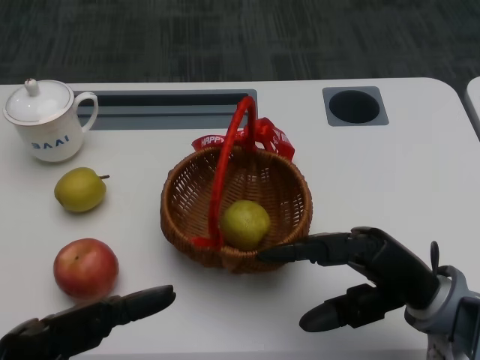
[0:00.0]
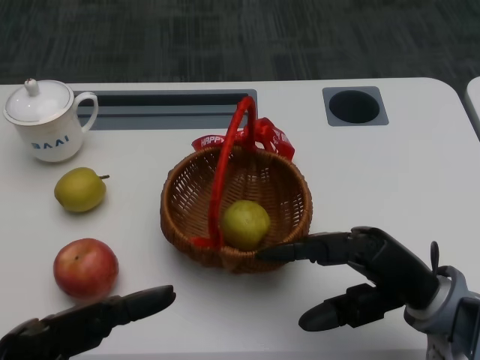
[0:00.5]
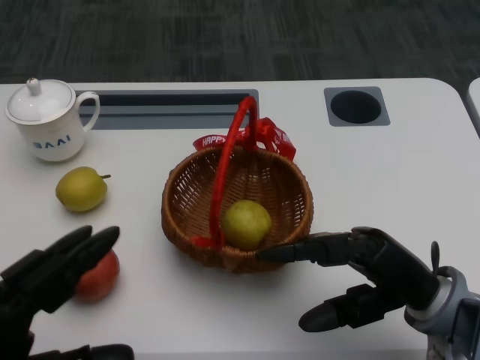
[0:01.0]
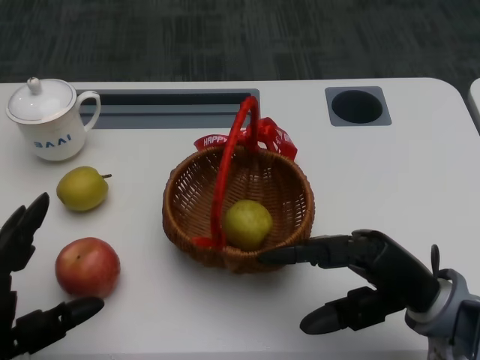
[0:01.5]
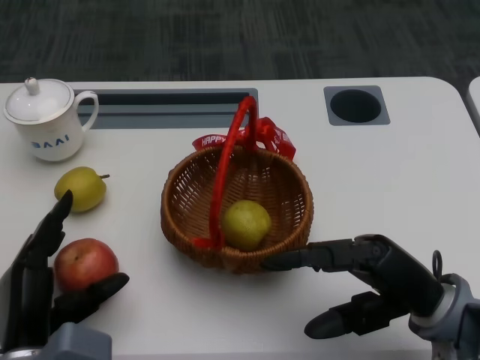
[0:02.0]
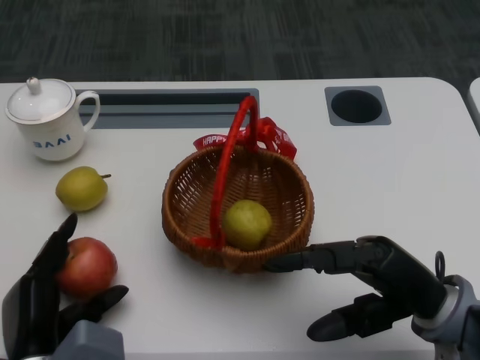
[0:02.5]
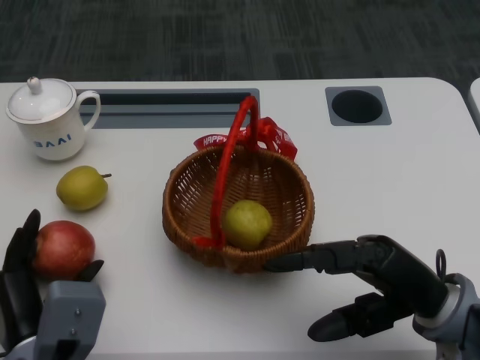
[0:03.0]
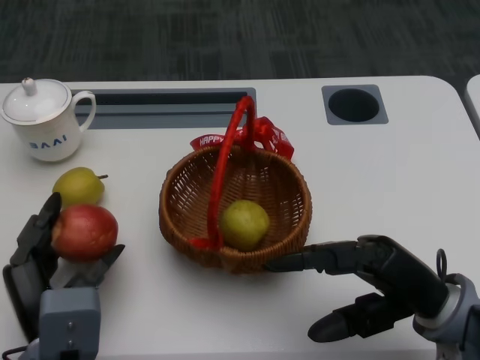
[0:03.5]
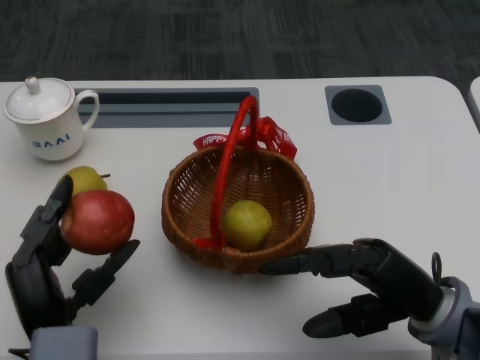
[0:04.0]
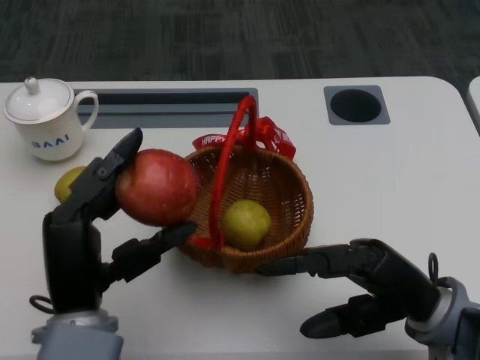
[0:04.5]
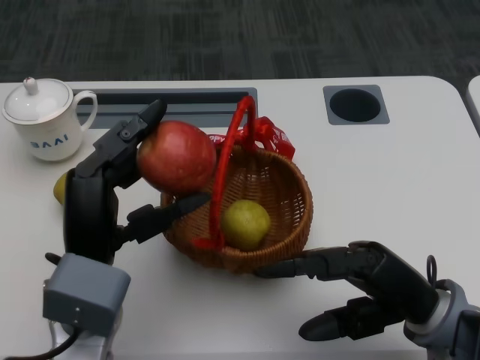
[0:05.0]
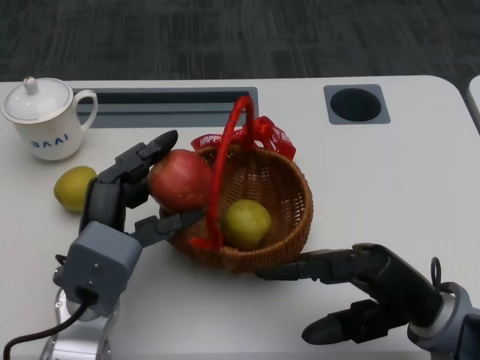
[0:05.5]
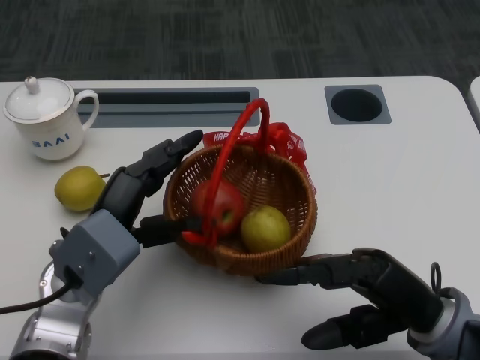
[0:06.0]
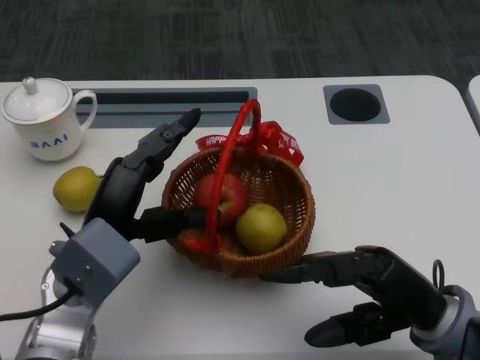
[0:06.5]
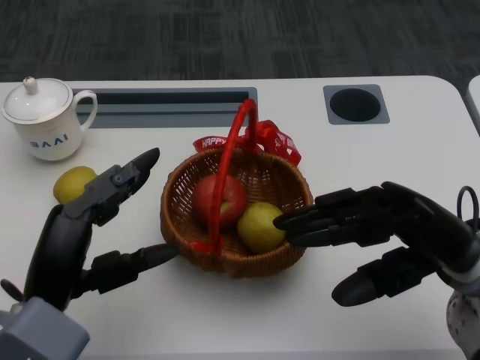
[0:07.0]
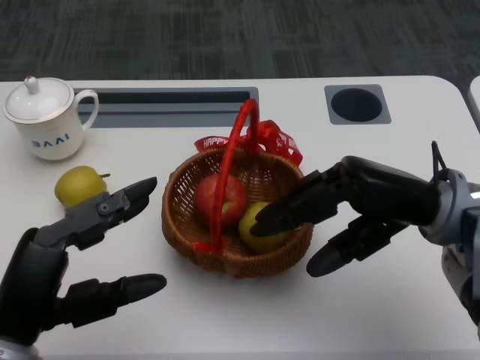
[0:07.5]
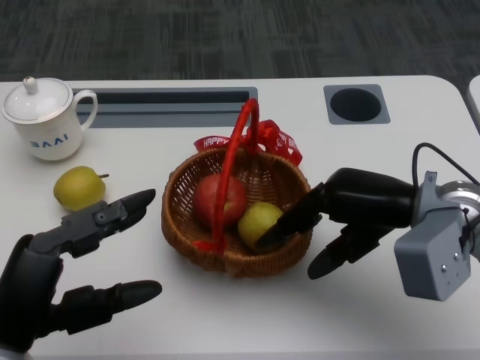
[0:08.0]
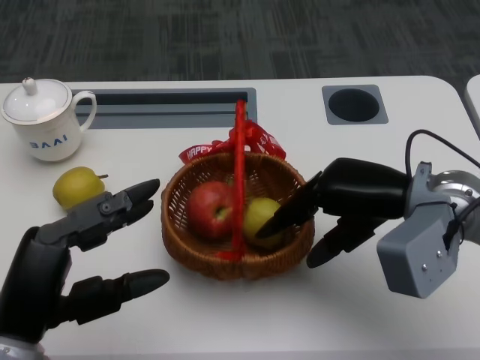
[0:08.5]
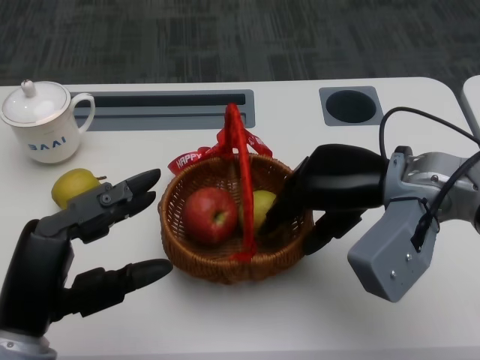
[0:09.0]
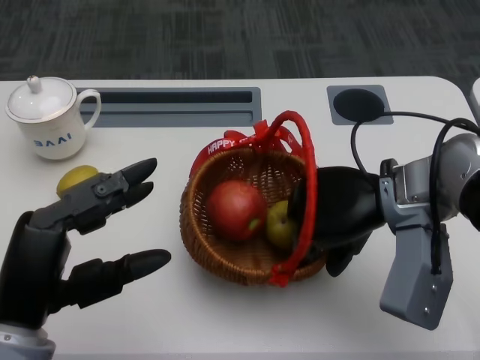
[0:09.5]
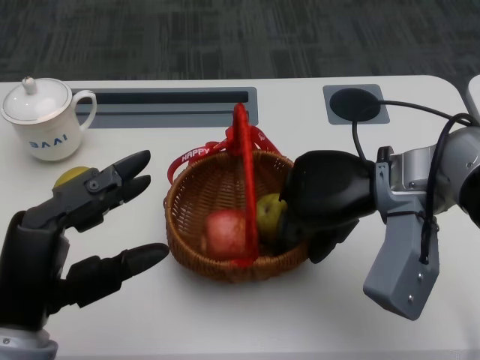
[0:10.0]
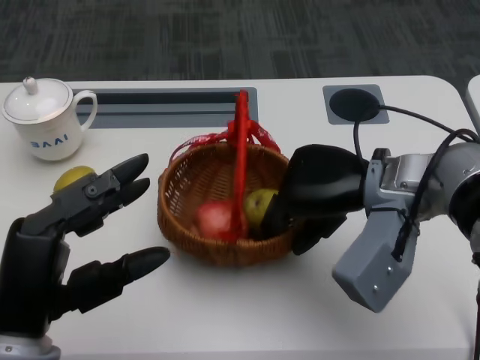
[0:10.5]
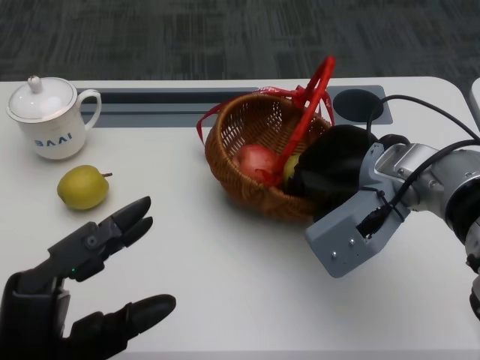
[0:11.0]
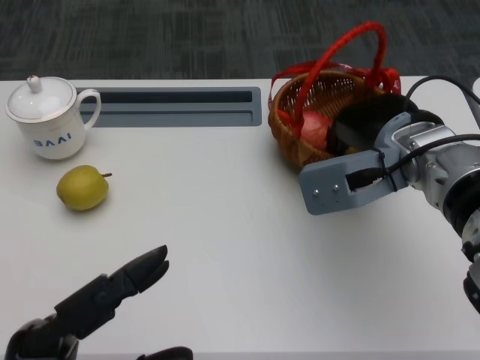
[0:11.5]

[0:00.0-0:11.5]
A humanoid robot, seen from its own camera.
Step, 0:00.5 to 0:02.0: Grasp the apple with the left gripper.
Step, 0:02.5 to 0:04.5: Place the apple into the basket with the left gripper.
Step, 0:05.0 to 0:07.5: Grasp the basket with the right gripper.
Step, 0:08.0 to 0:10.0: Move the basket to the front of the table with the right gripper.
0:04.0 to 0:06.0: The left hand goes some 10 cm forward and upward.
0:06.0 to 0:07.5: The left hand heads backward and to the left, covering roughly 10 cm. The right hand travels upward and forward by approximately 10 cm.
0:09.5 to 0:11.5: The left hand heads backward, covering approximately 10 cm.

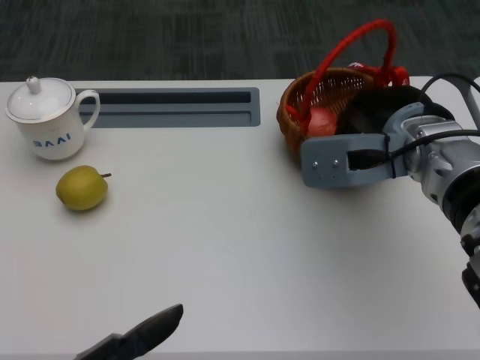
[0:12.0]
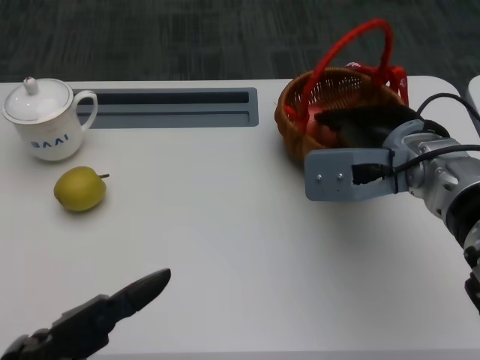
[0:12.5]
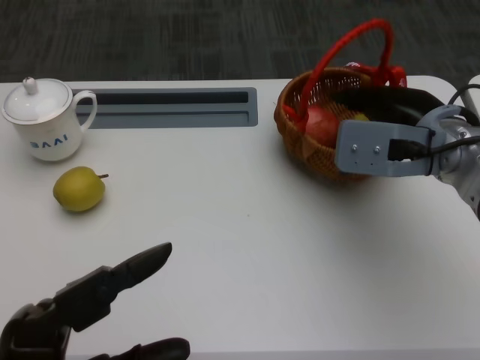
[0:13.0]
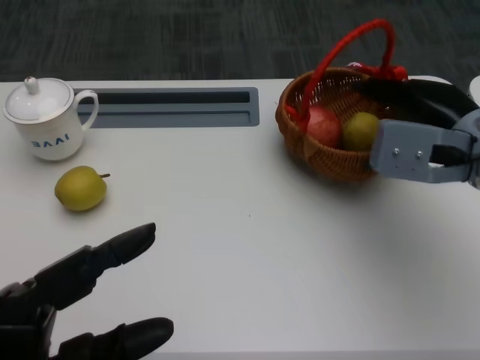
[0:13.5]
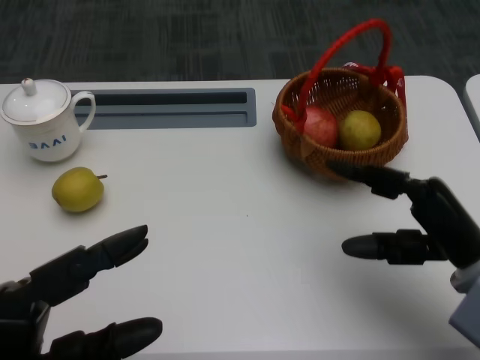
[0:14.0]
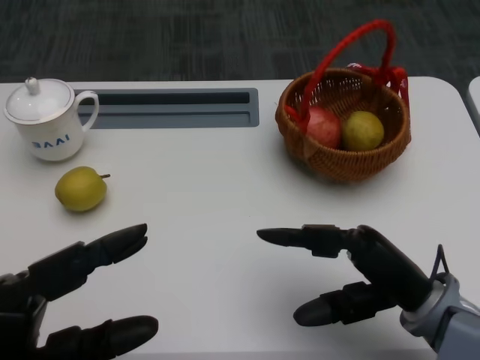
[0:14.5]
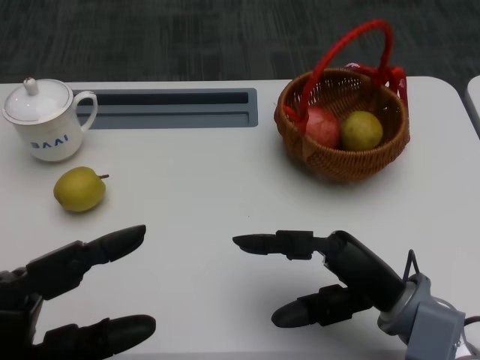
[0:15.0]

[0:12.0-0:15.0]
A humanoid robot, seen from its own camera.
0:12.0 to 0:13.5: The left hand moves forward, roughly 5 cm; the right hand shifts roughly 5 cm to the right.
0:13.5 to 0:15.0: The right hand travels backward, downward and to the left by approximately 15 cm.
